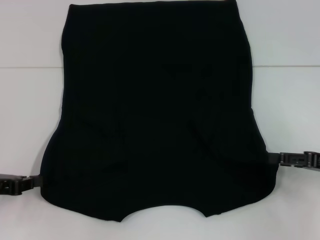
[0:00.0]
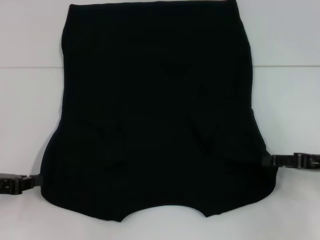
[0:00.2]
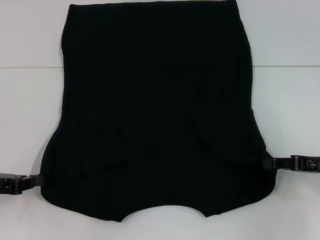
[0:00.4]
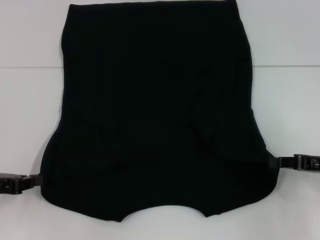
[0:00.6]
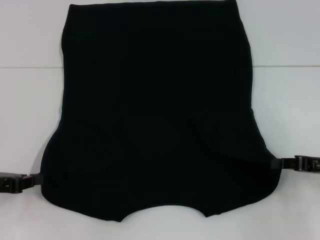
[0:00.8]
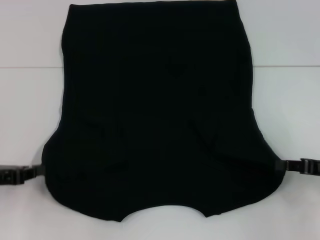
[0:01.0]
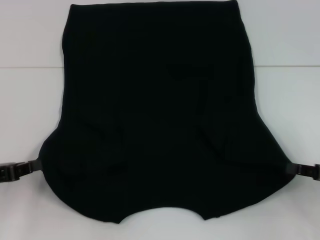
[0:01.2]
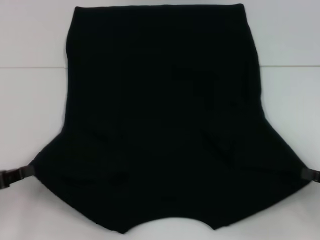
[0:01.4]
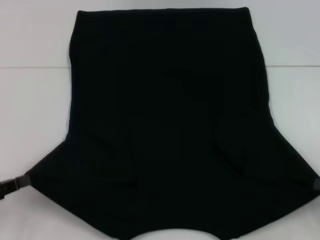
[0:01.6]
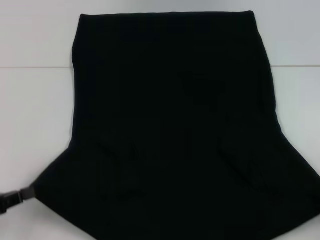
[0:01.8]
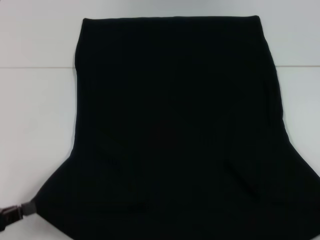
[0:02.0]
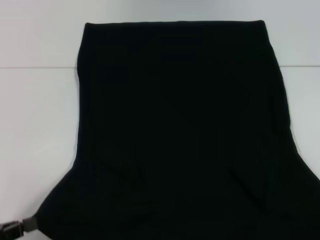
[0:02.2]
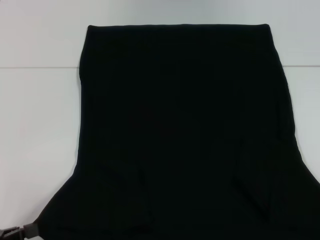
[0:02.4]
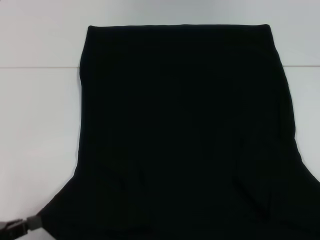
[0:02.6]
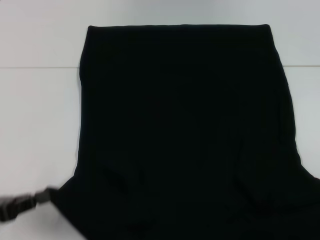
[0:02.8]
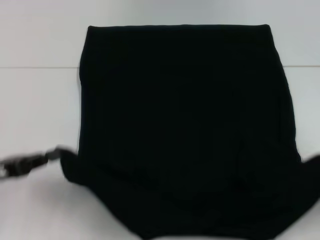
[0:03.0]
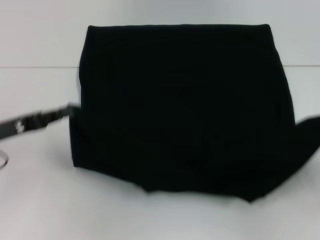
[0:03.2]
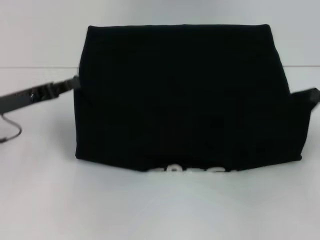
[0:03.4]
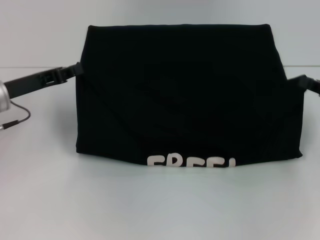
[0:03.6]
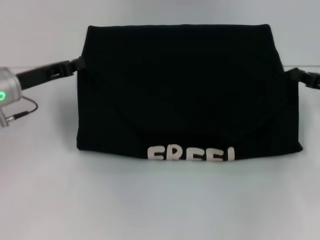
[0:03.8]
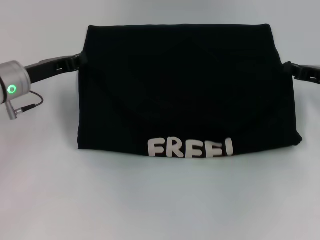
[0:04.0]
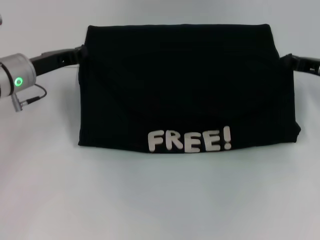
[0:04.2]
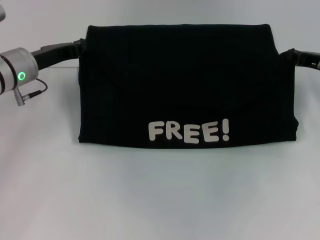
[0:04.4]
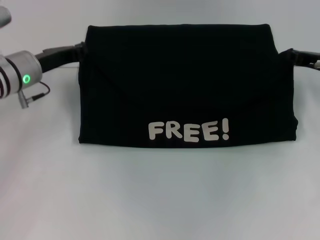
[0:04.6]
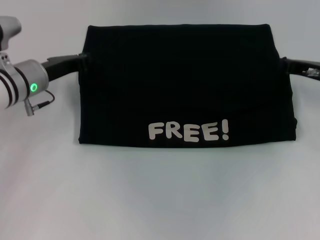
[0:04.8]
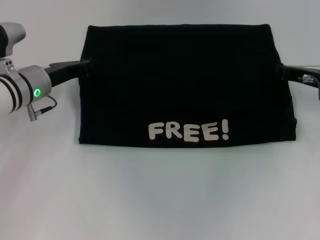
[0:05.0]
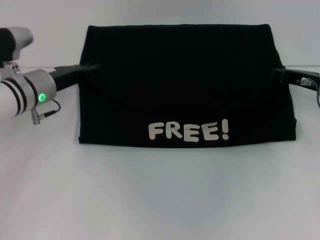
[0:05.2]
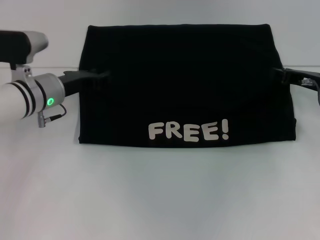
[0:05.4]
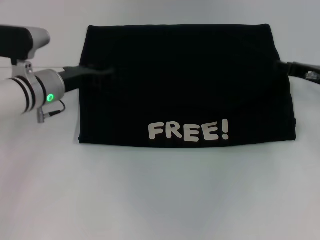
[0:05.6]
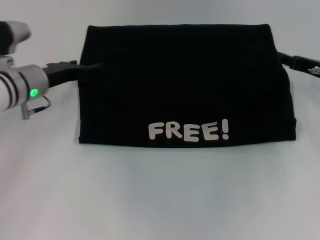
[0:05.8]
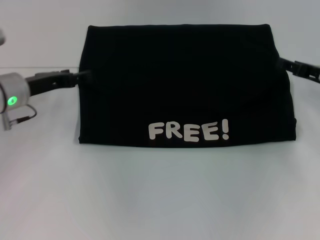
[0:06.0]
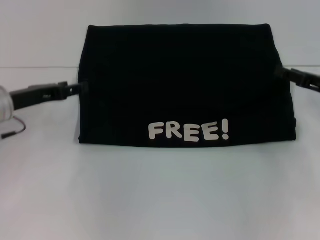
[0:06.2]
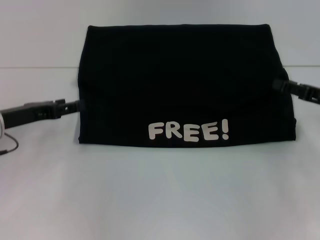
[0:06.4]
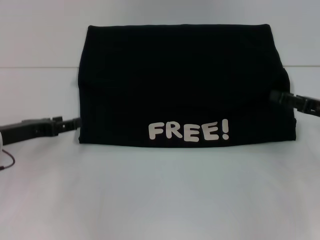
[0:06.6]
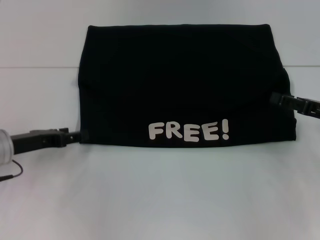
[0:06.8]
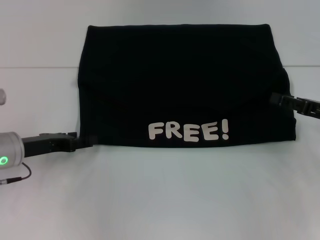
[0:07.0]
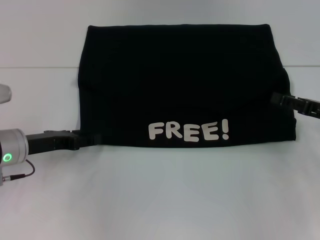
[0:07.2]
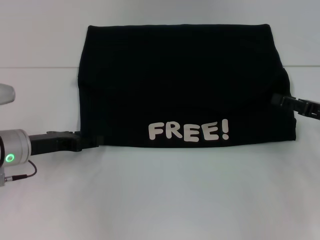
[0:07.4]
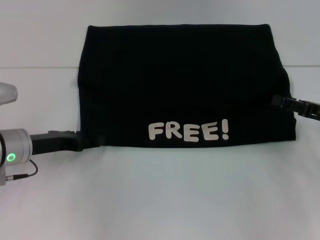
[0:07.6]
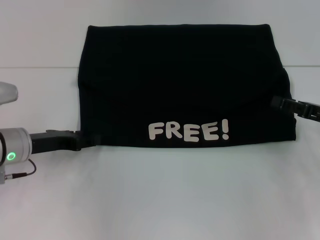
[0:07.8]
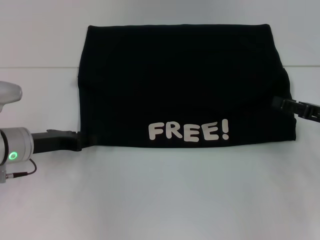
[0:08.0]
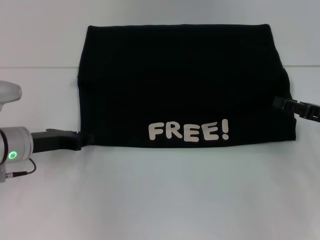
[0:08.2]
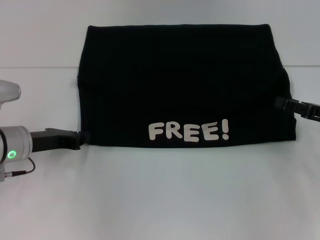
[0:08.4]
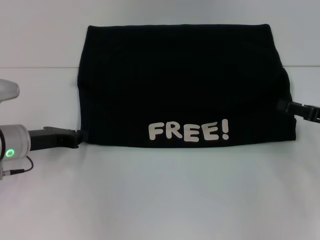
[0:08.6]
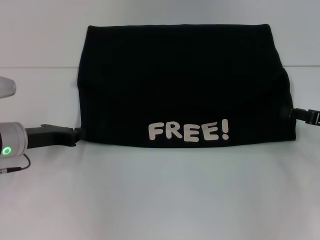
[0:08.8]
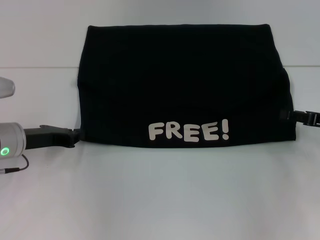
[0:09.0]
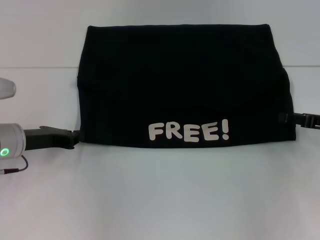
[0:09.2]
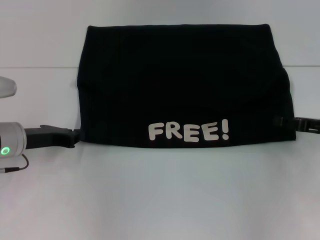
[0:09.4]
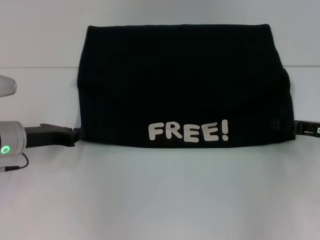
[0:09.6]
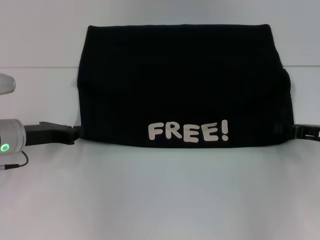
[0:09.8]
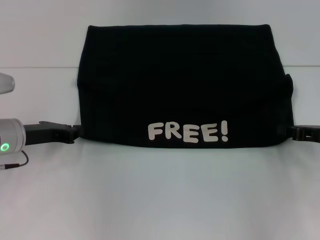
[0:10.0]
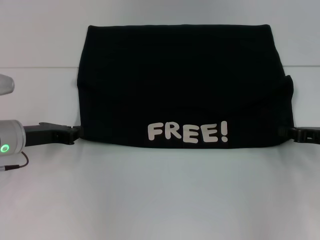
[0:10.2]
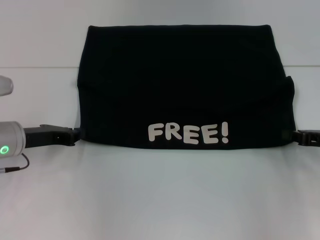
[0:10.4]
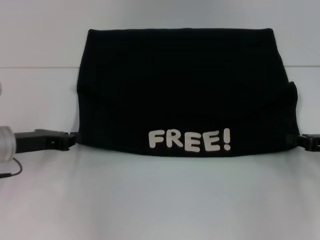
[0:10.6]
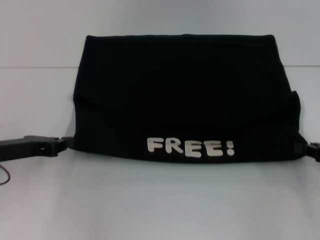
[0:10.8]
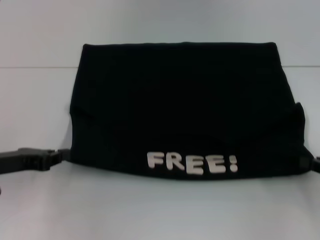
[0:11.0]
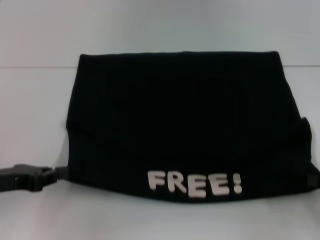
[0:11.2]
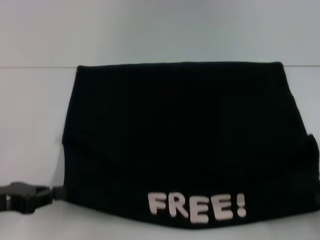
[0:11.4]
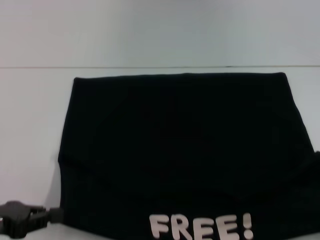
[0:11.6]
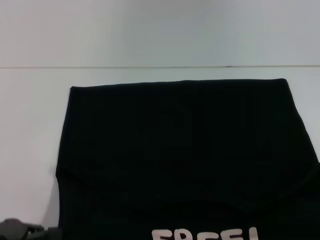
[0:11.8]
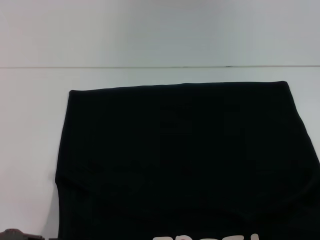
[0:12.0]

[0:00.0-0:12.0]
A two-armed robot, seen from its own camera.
Step, 0:00.0 to 0:01.2: Grab the bottom right corner with your right hand.
Step, 0:01.4 to 0:05.4: Fold the clothes with your left hand.
Step, 0:01.4 to 0:05.4: Fold the clothes with your right hand.
Step, 0:05.6 to 0:12.0: Pull the clothes with your left hand.
Step, 0:05.6 to 0:12.0: Pull the clothes with your right hand.
0:00.0 to 0:01.6: The right gripper moves backward, some 10 cm, and closes; the left gripper travels backward by roughly 5 cm.
0:01.6 to 0:03.0: The right gripper moves some 10 cm backward and comes back.
0:03.0 to 0:04.4: The left gripper travels forward and to the right by approximately 20 cm. The right gripper goes some 20 cm forward and to the left.
0:04.4 to 0:06.0: The left gripper opens its fingers. The right gripper opens up.
0:06.0 to 0:07.6: Both grippers move backward, some 5 cm.
0:07.6 to 0:09.0: The left gripper closes its fingers.
0:09.0 to 0:10.4: The right gripper closes its fingers.
0:10.4 to 0:12.0: Both grippers travel together backward, approximately 15 cm.

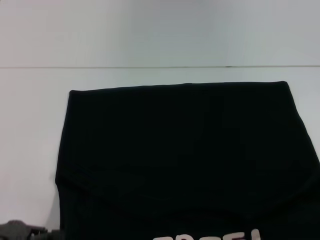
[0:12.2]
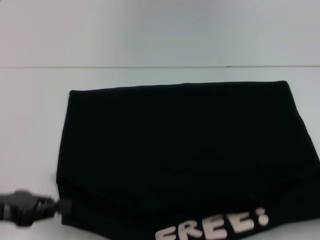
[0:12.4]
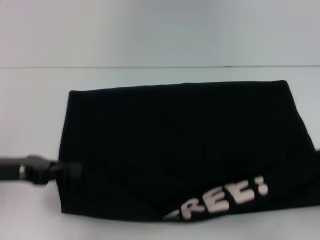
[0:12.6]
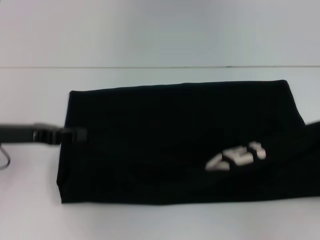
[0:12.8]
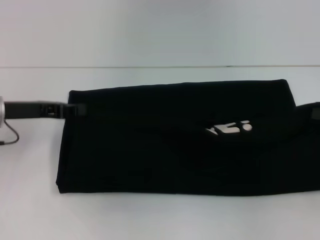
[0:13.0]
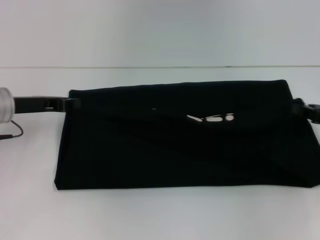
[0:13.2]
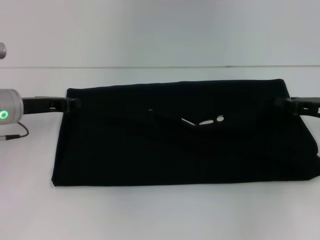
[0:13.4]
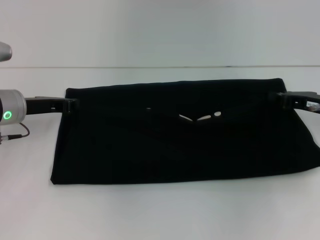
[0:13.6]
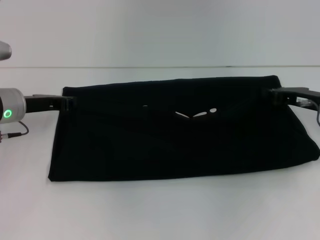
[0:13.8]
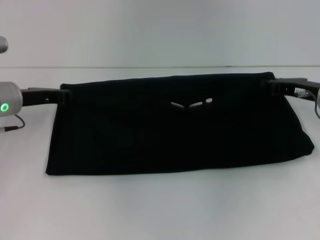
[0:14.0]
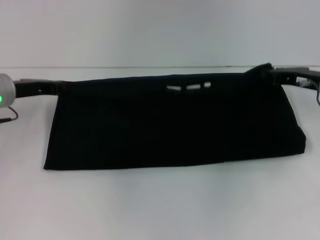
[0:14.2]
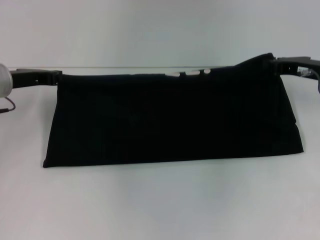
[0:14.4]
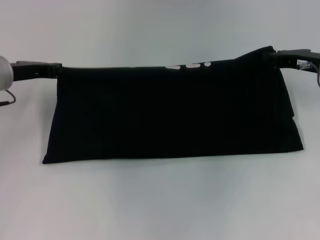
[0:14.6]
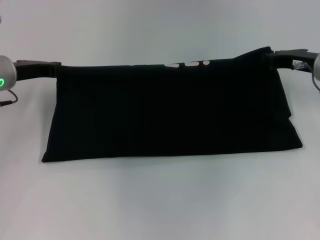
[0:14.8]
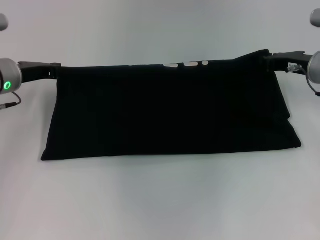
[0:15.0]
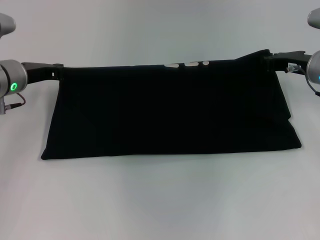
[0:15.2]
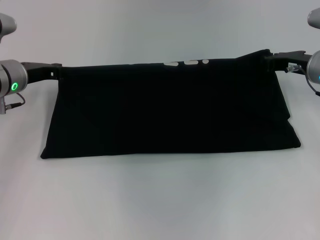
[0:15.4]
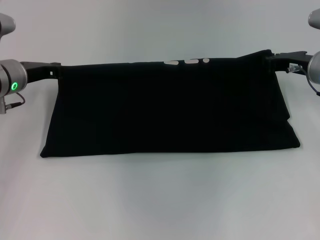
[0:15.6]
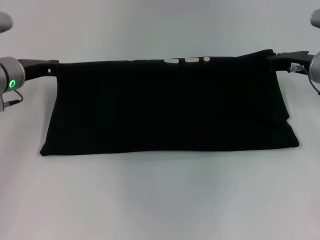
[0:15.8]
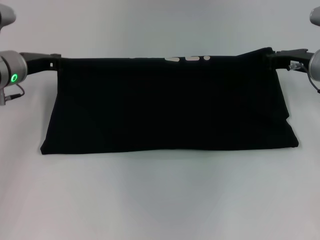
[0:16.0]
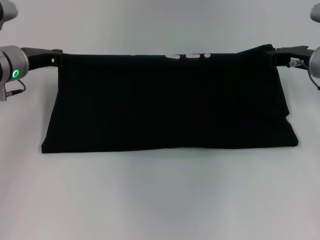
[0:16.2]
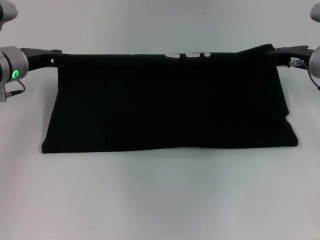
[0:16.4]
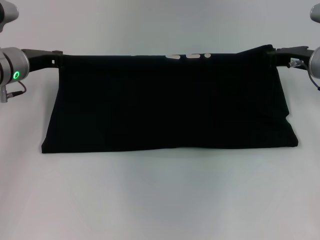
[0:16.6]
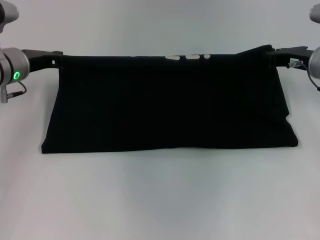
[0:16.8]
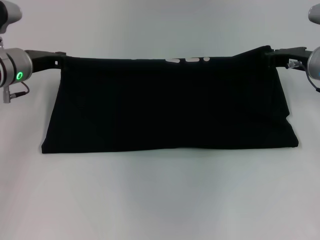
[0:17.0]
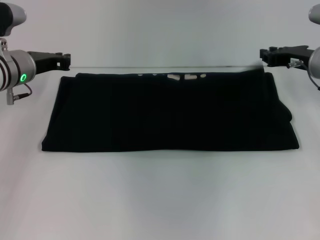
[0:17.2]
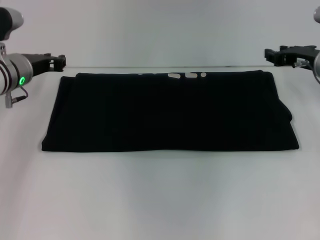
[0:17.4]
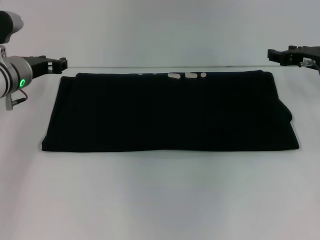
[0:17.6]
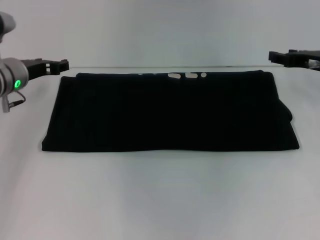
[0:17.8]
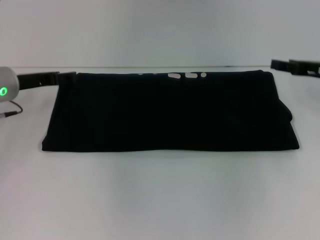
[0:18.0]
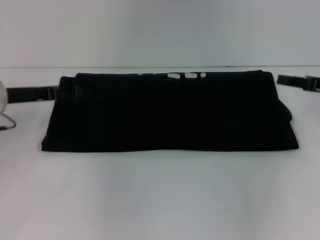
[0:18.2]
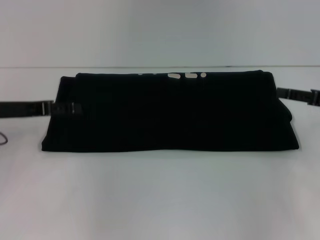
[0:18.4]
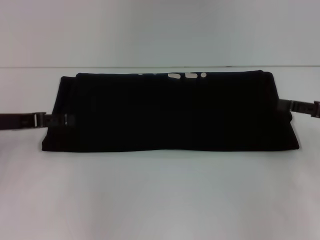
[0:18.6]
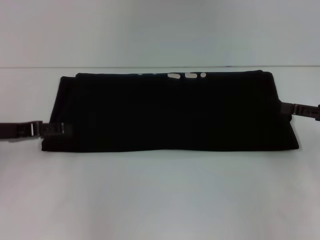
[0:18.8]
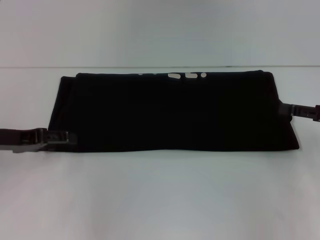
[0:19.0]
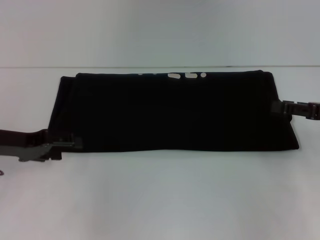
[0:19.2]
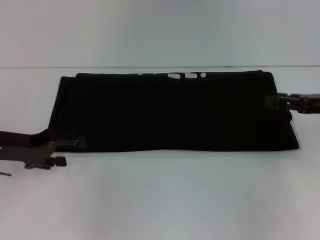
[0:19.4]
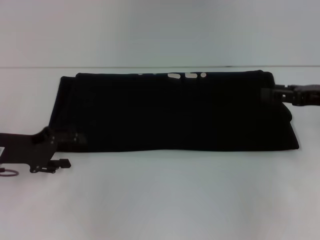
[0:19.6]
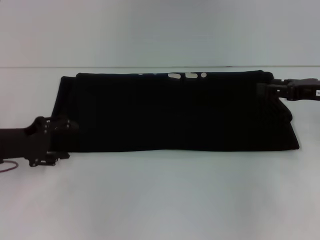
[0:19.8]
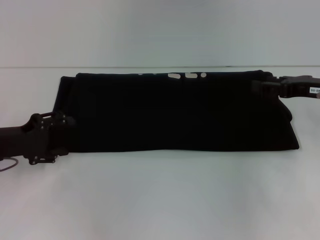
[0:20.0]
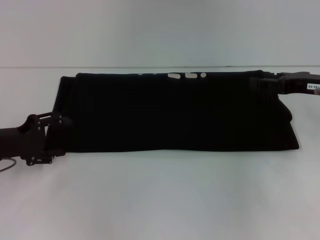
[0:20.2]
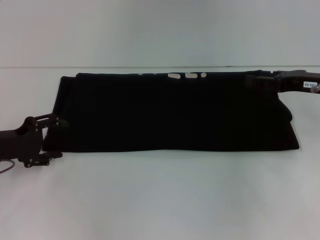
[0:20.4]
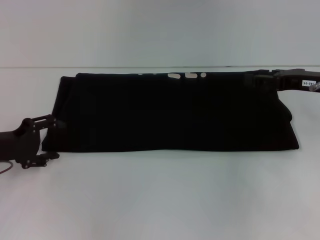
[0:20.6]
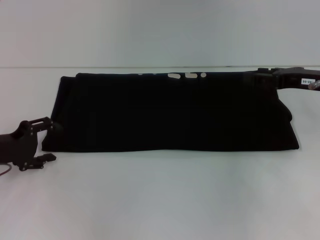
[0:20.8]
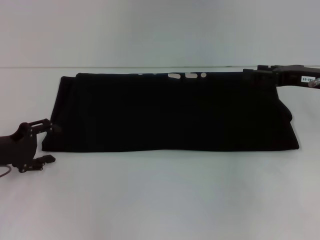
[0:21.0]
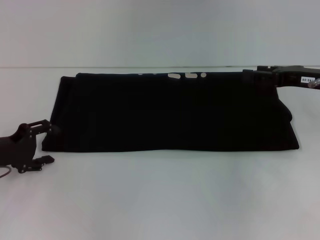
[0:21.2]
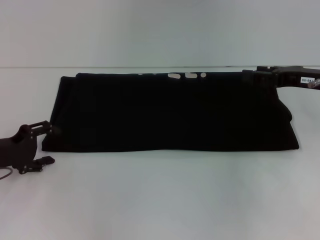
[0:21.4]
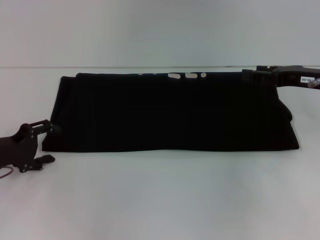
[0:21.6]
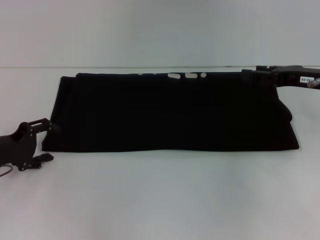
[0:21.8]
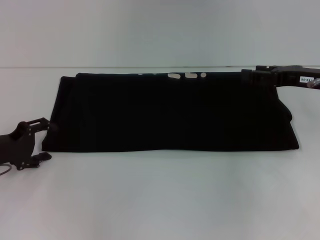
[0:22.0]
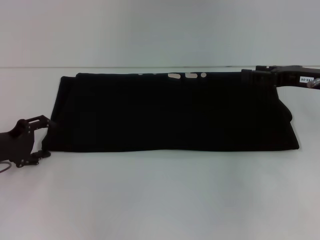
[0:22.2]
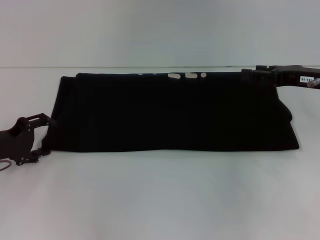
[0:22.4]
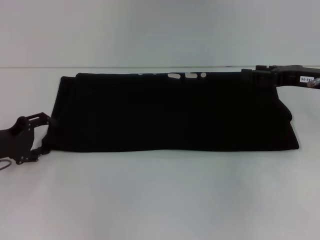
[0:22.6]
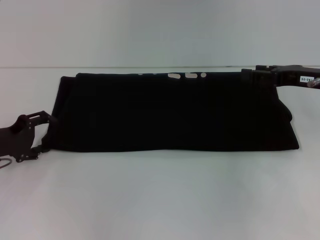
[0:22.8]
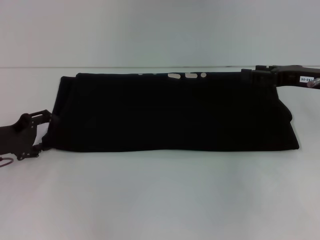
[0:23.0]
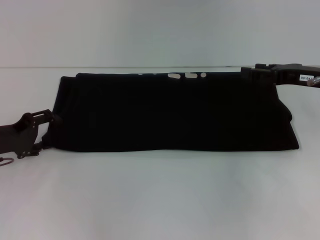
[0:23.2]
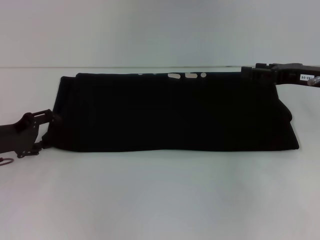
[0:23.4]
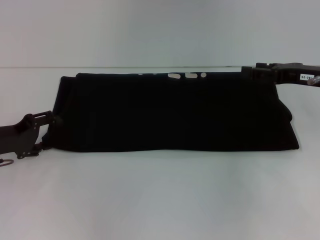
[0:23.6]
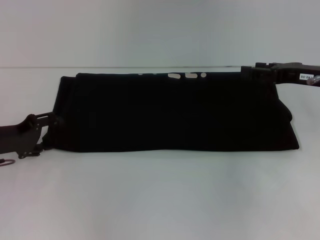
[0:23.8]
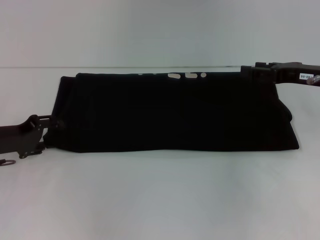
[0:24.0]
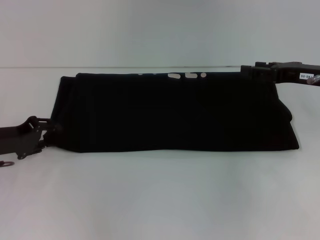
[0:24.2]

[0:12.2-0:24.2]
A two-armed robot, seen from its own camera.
Step, 0:12.2 to 0:17.2: Fold the clothes with your right hand.
0:12.2 to 0:13.8: The right gripper shifts approximately 25 cm forward and to the left; the left gripper heads forward, covering approximately 20 cm.
0:13.8 to 0:15.2: The right gripper moves some 5 cm.
0:15.2 to 0:16.6: There are only small adjustments of the grippers.
0:16.6 to 0:18.2: The left gripper moves backward, about 5 cm, and opens up. Meanwhile the right gripper heads to the right and backward, covering about 10 cm, and opens up.
0:18.2 to 0:19.8: The left gripper moves backward, roughly 5 cm.
0:19.8 to 0:24.2: The grippers stay close to where they were, moving slightly.
